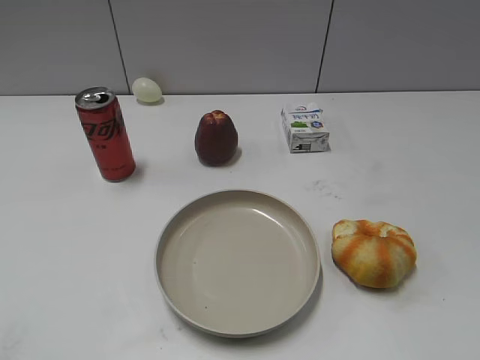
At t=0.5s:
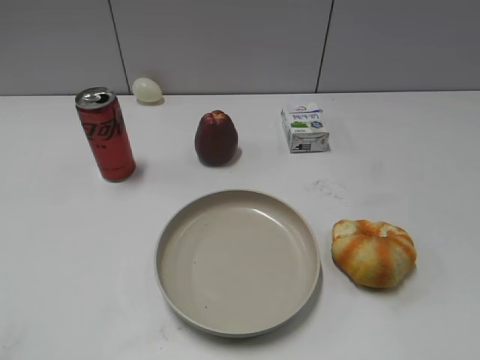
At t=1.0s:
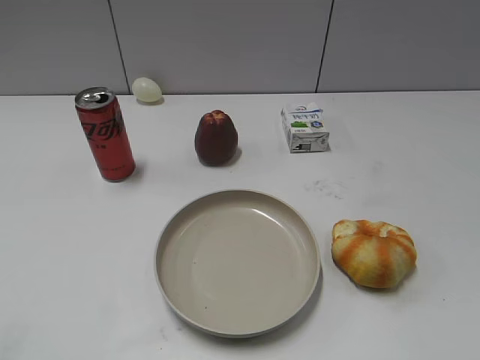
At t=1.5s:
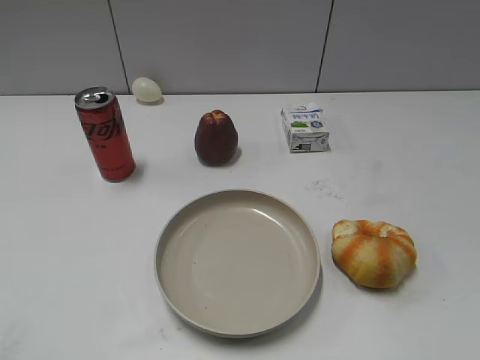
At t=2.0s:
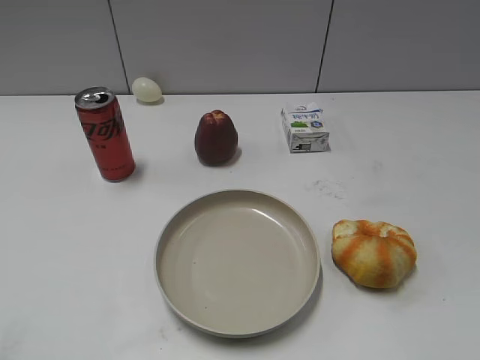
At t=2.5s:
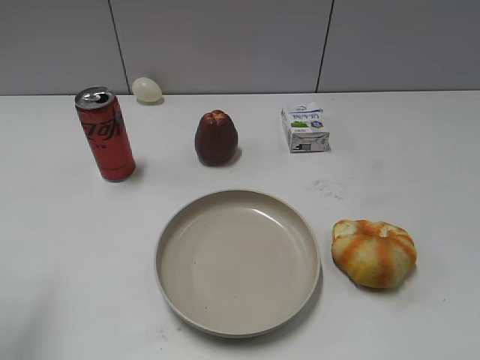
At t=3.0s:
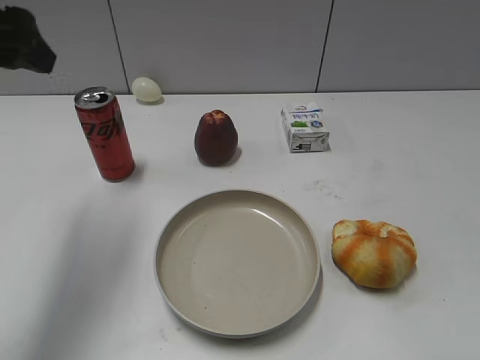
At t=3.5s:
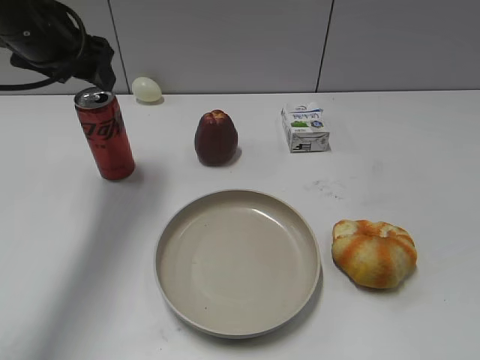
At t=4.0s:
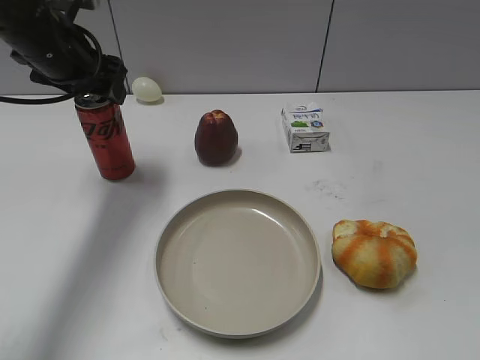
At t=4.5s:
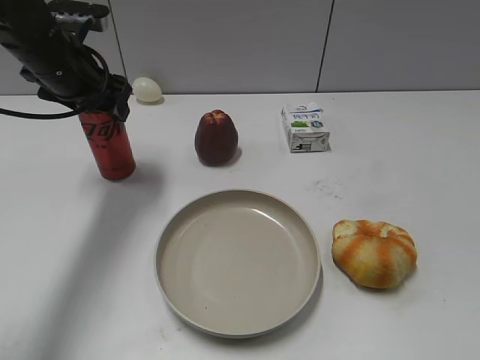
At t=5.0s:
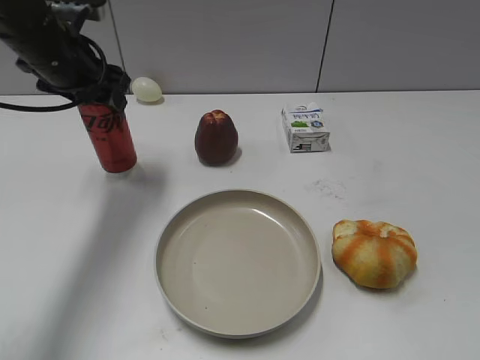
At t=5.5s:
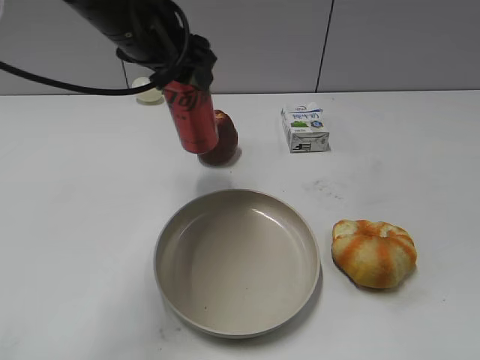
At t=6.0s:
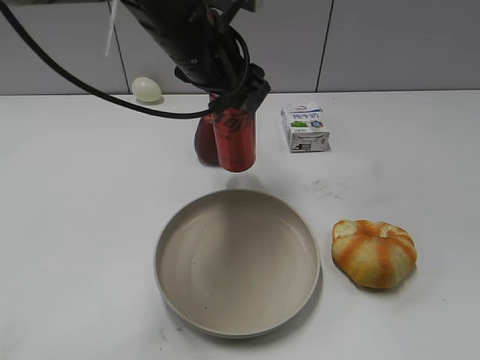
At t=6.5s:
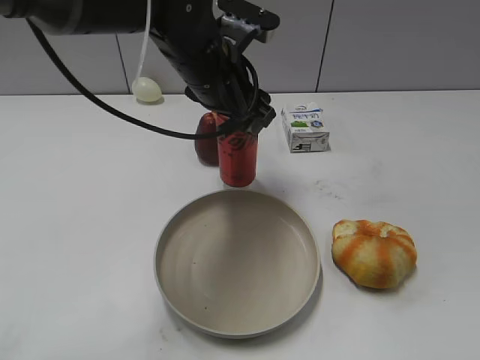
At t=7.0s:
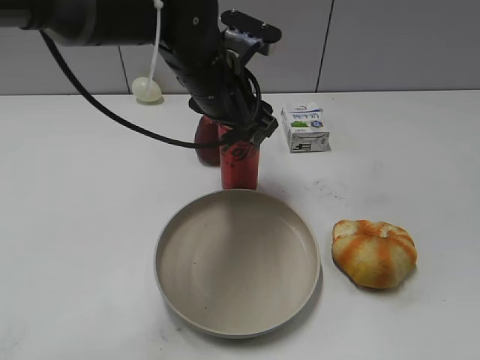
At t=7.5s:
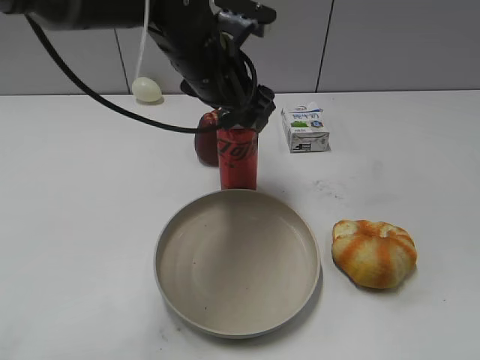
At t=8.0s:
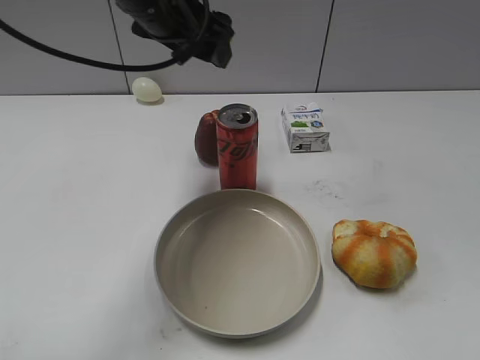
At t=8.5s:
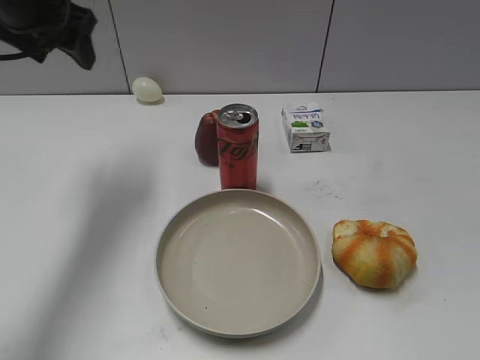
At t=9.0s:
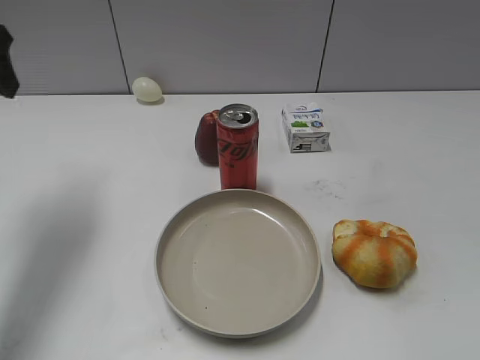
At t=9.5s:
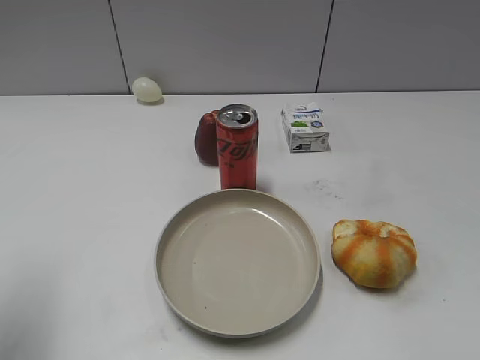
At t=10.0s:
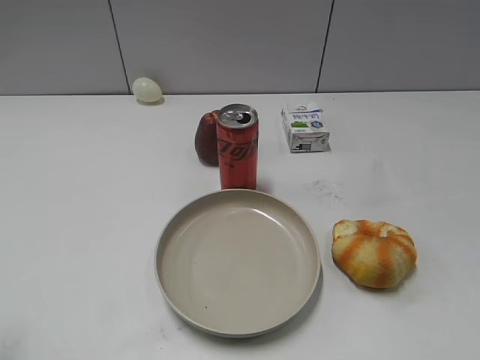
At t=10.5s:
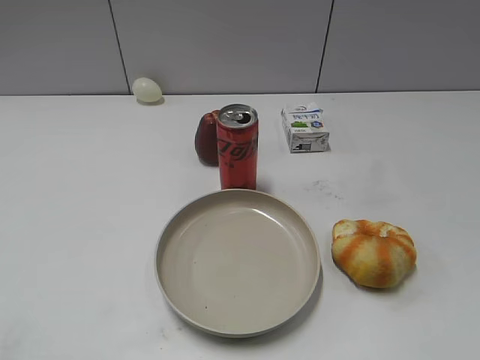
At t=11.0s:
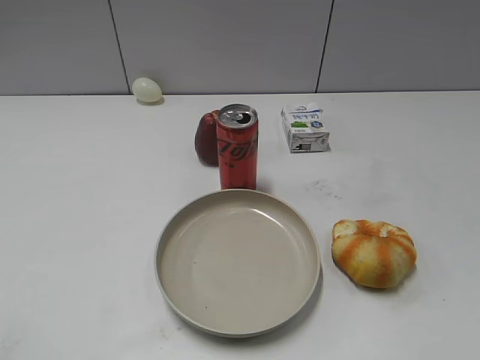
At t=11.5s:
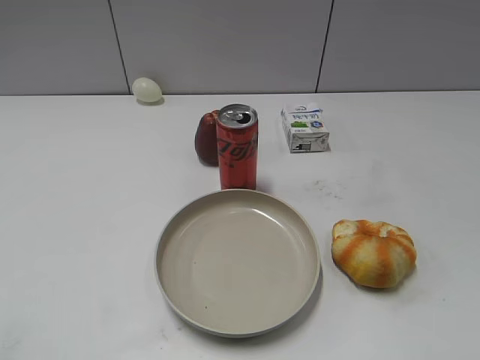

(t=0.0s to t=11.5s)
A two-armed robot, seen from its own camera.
Step, t=2.0s - t=4.5s: Grasp the cola with left gripper.
Step, t=5.0s - t=7.5s: Place the cola on the table with left gripper.
t=2.0s - t=4.0s: The left gripper travels forward by some 35 cm.
t=4.0s - t=6.0s: The left gripper travels to the right by some 15 cm, and closes up.
t=6.0s - t=7.5s: The left gripper opens up.
t=7.5s - t=9.5s: The left gripper travels to the left and backward by some 30 cm, and closes up.
t=9.5s - t=11.5s: The left gripper moves backward, about 20 cm.
